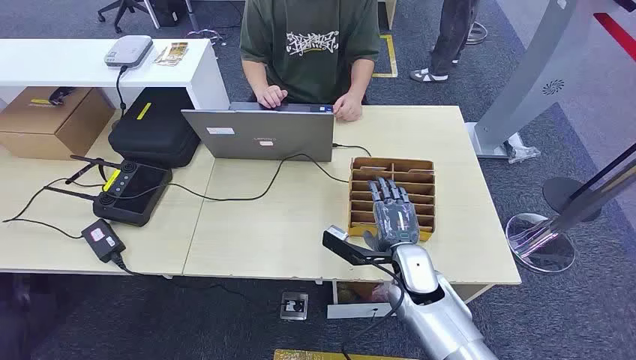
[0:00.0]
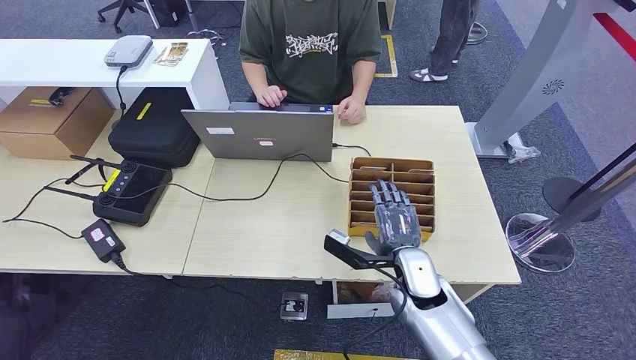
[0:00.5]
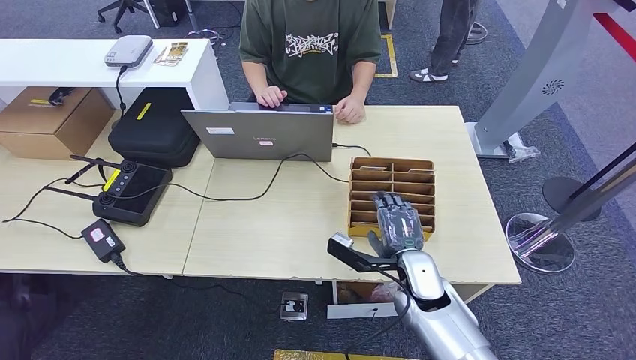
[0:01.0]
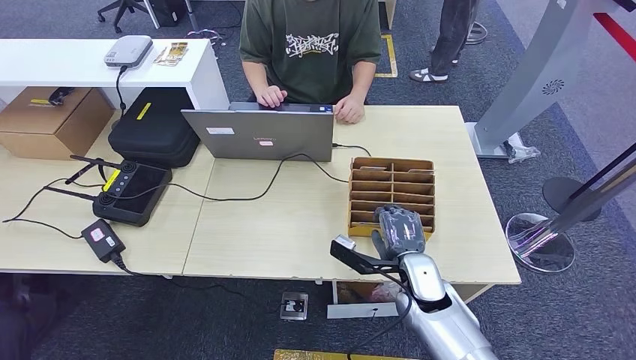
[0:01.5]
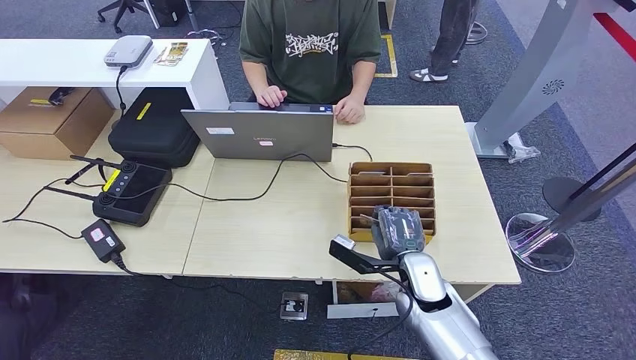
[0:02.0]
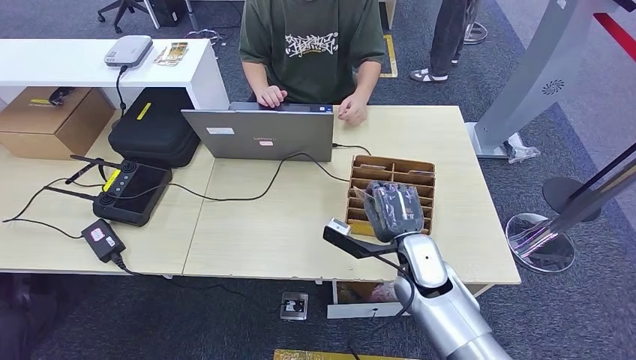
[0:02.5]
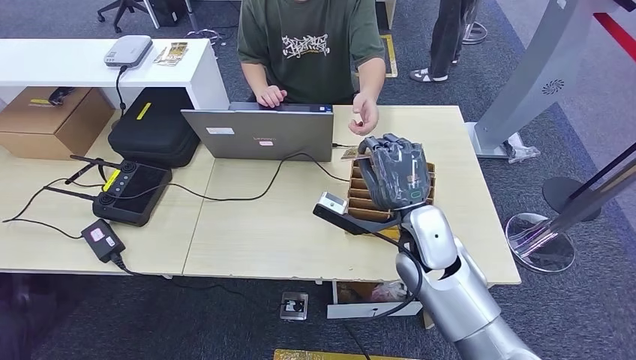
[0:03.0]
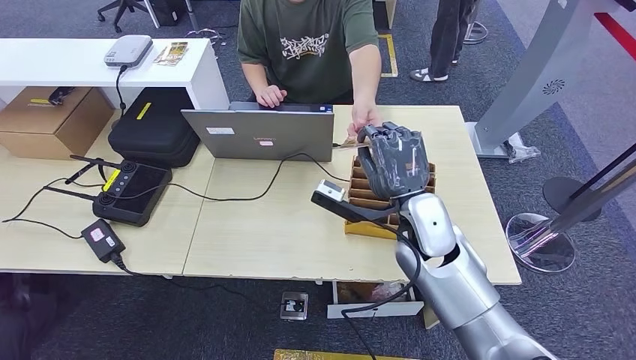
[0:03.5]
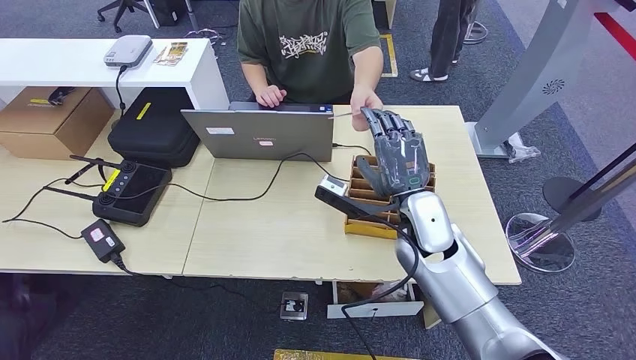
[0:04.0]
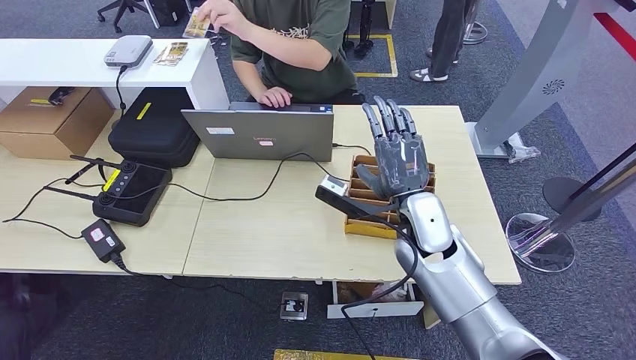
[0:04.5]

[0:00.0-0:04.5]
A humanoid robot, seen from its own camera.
Step, 0:00.0 to 0:02.5: Pick up the room card from the card holder.
Step, 0:03.0 to 0:04.5: Hand the room card to the target.
0:02.0 to 0:04.5: The right hand shifts roughly 10 cm upward.
